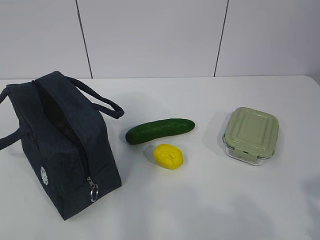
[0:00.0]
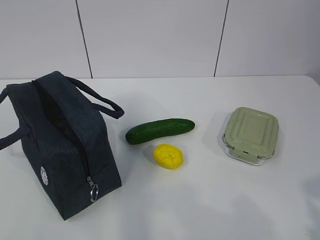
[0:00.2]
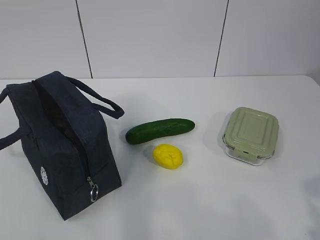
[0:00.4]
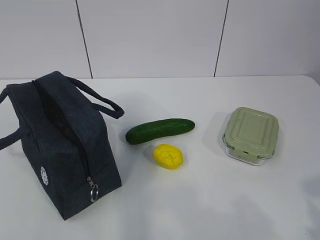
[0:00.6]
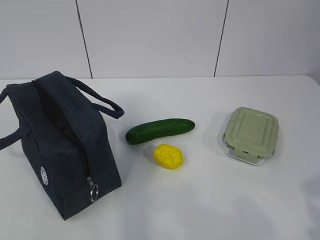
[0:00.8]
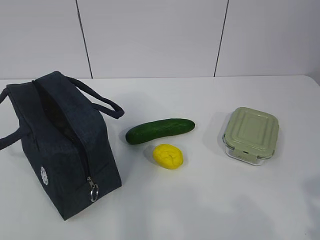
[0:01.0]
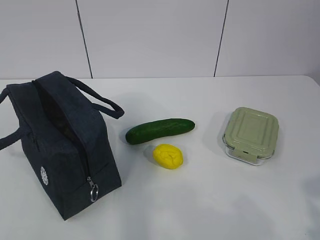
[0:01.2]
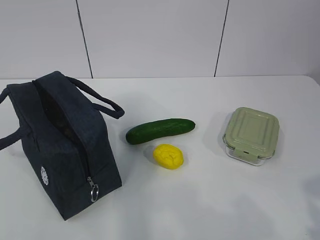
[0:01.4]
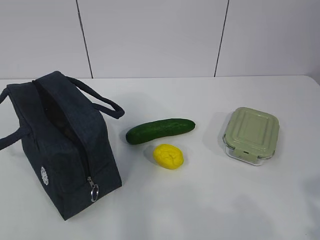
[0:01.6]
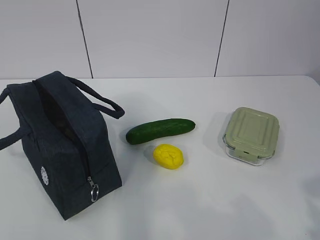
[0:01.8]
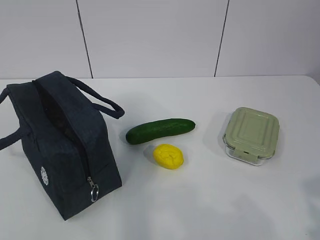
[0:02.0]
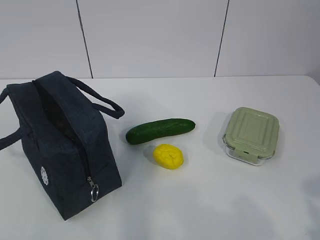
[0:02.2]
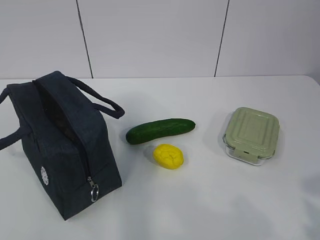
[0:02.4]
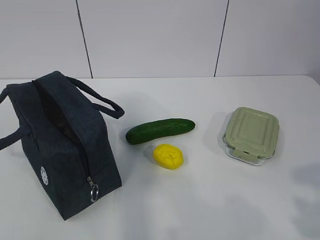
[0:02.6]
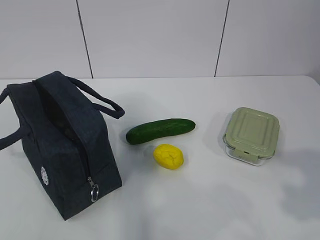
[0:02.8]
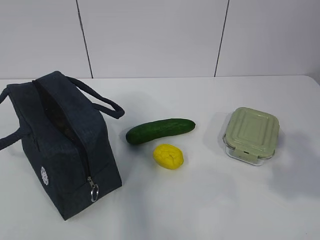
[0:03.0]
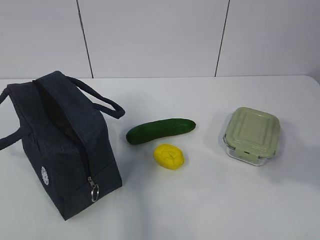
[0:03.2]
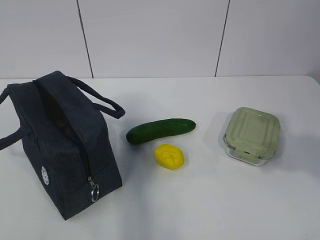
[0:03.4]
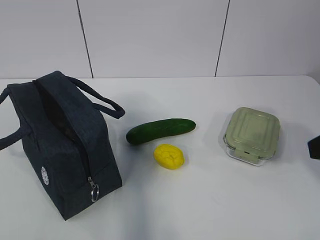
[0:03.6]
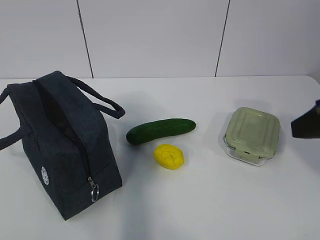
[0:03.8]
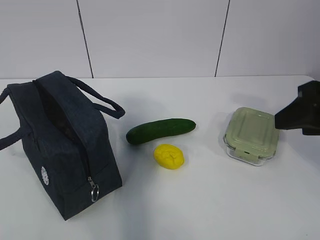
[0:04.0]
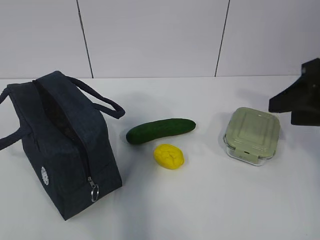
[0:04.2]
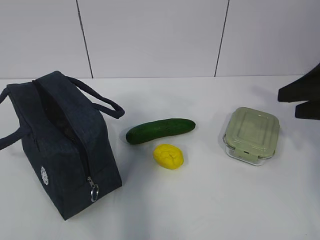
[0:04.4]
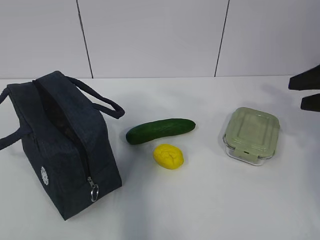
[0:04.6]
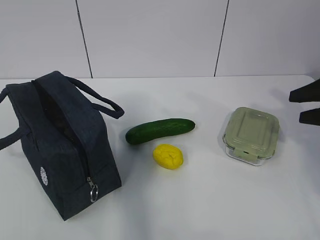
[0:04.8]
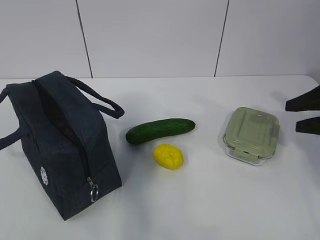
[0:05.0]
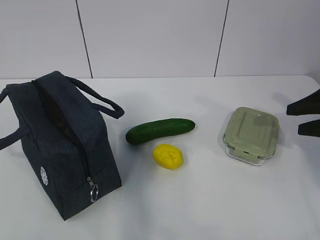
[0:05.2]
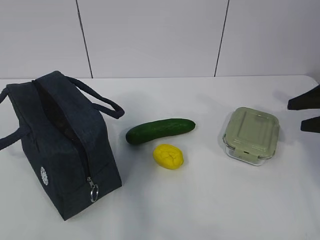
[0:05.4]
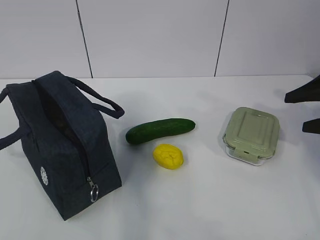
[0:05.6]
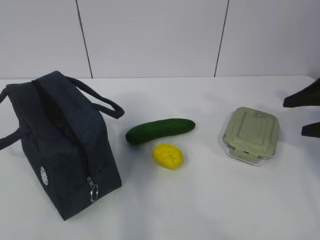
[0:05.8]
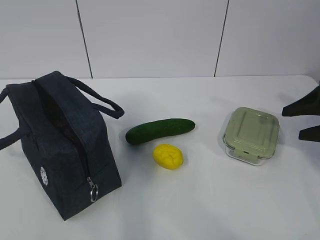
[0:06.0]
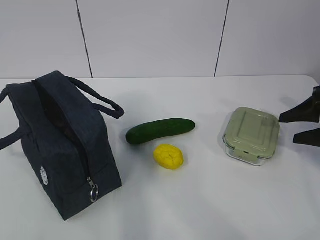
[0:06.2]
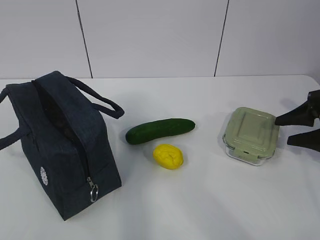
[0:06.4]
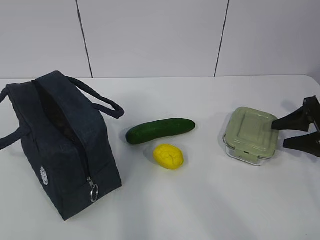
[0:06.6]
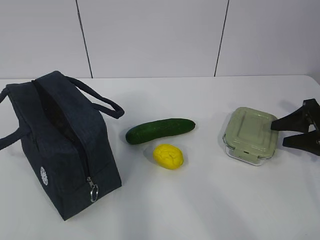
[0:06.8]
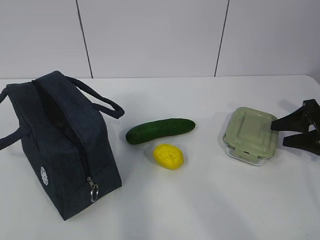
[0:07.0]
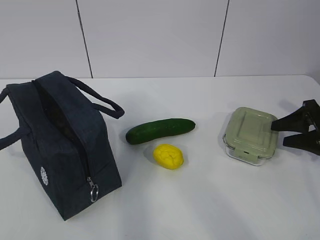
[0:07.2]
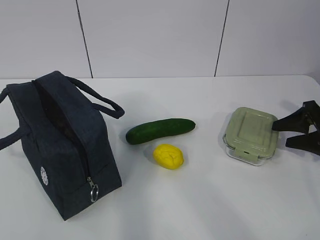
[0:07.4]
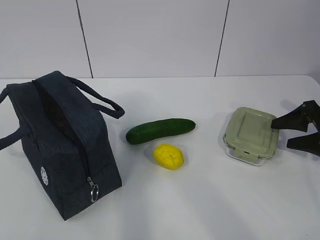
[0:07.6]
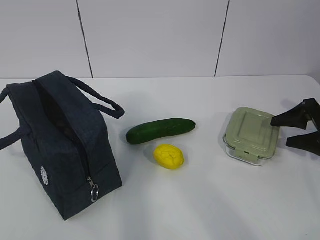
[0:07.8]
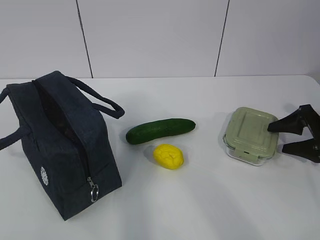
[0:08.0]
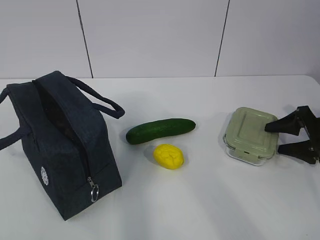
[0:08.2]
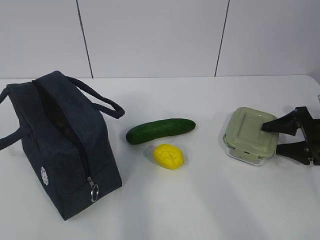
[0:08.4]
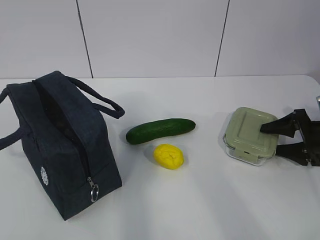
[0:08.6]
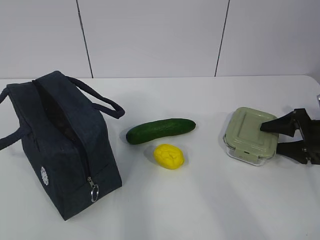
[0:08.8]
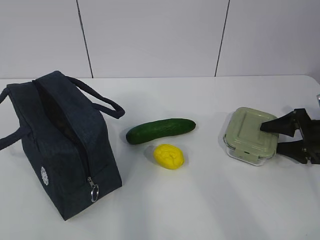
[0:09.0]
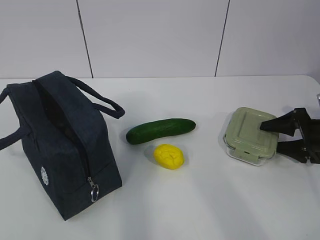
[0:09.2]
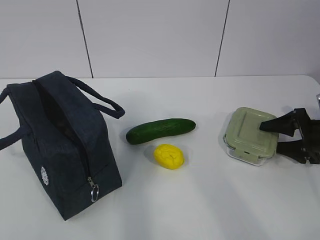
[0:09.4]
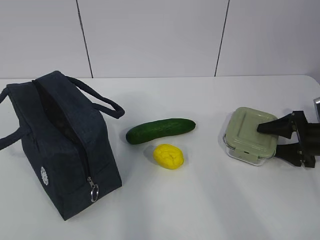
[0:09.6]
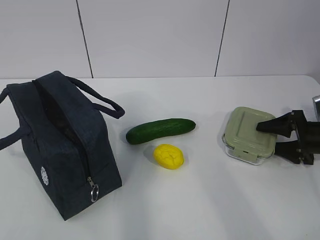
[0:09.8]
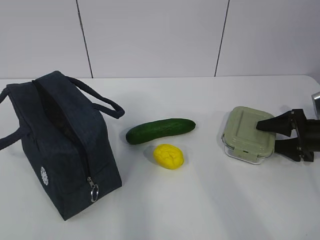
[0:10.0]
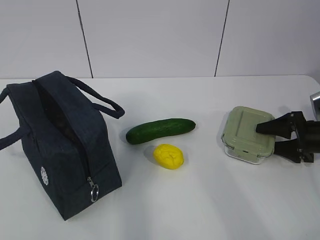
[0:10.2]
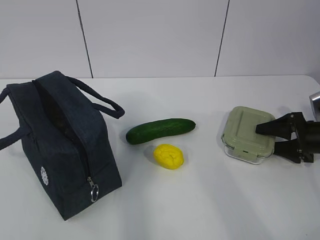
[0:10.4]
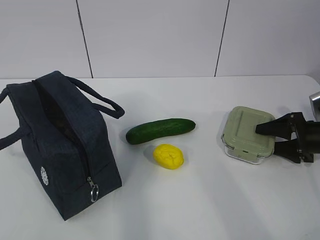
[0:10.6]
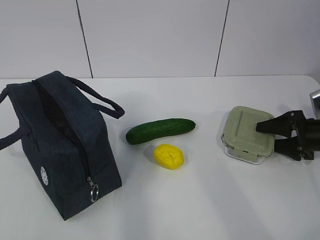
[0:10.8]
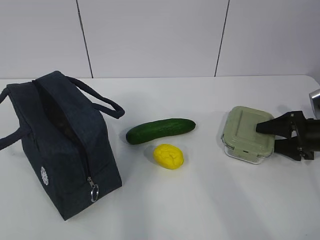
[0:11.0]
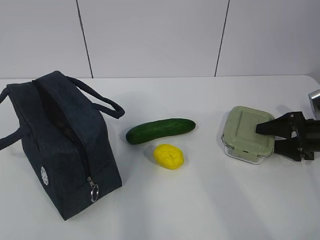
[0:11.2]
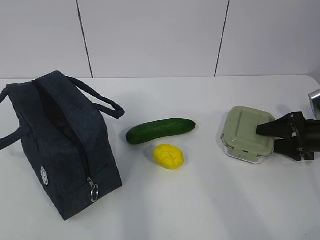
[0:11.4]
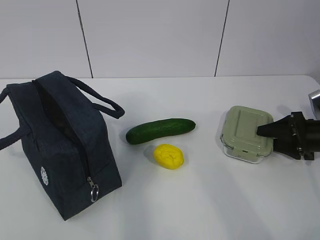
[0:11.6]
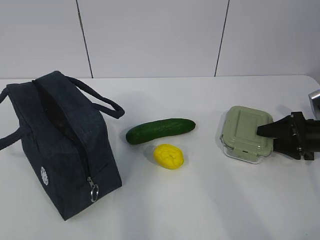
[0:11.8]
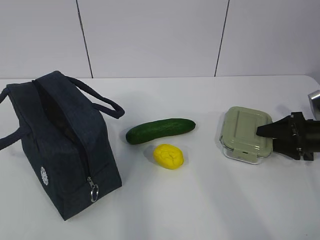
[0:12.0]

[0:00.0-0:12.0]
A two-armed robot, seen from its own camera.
0:03.0 to 0:04.4: The right gripper goes some 15 cm forward.
0:04.4 to 0:06.0: The right gripper shifts about 15 cm downward, to the right and forward.
0:06.0 to 0:07.6: The right gripper heads downward, covering some 5 cm.
0:07.6 to 0:10.4: There are only small adjustments of the grippers.
0:10.4 to 0:12.0: Both grippers stay about where they are.

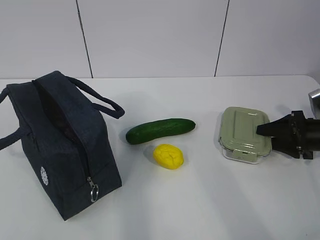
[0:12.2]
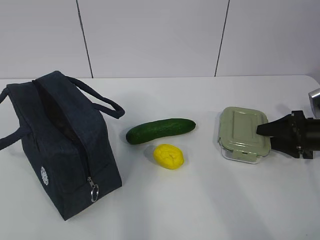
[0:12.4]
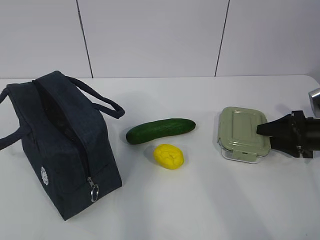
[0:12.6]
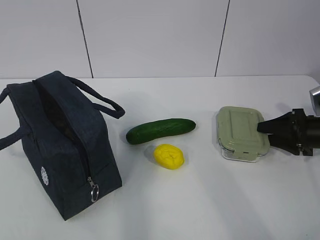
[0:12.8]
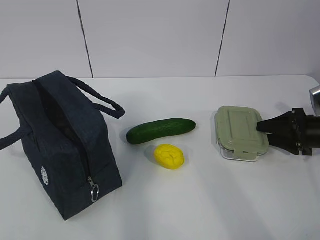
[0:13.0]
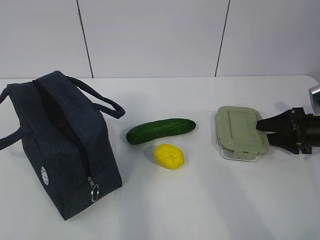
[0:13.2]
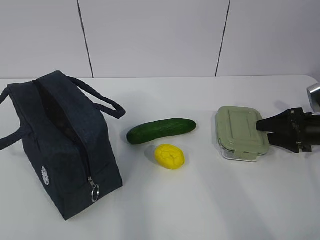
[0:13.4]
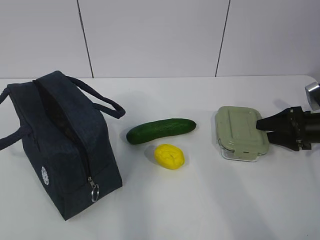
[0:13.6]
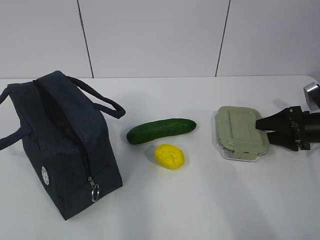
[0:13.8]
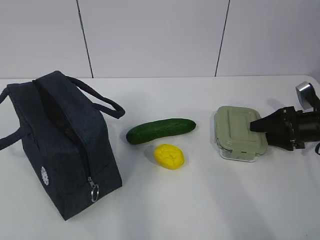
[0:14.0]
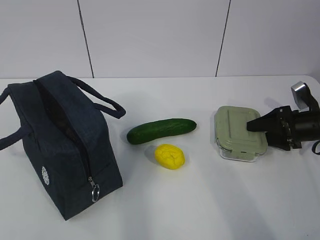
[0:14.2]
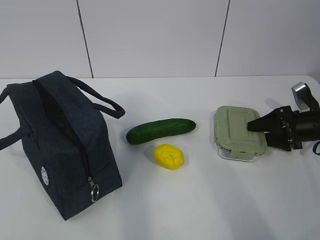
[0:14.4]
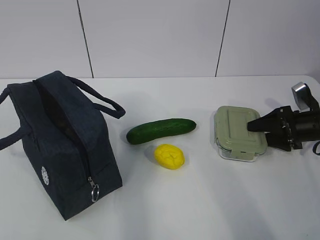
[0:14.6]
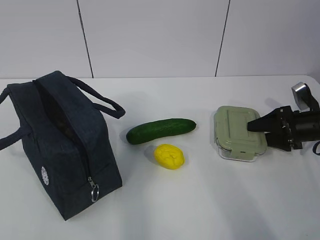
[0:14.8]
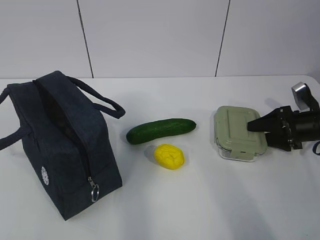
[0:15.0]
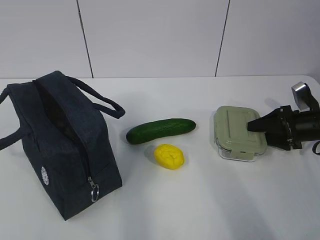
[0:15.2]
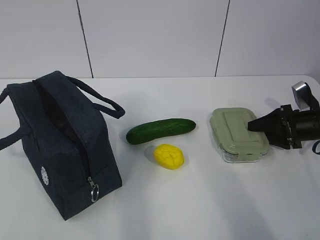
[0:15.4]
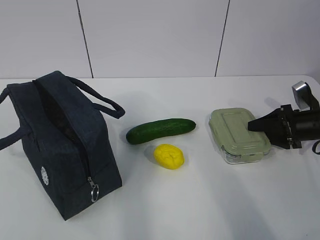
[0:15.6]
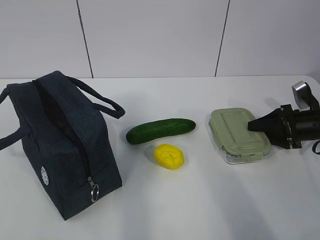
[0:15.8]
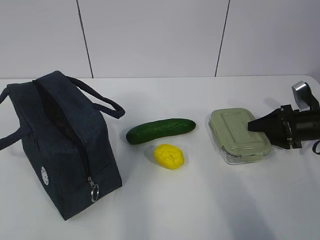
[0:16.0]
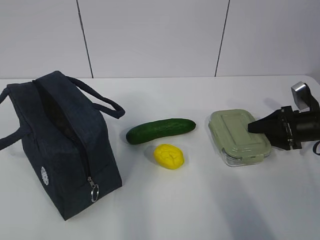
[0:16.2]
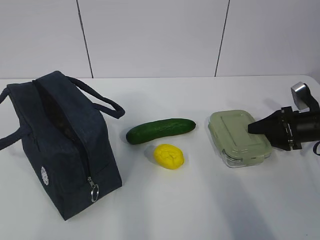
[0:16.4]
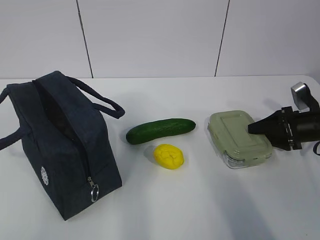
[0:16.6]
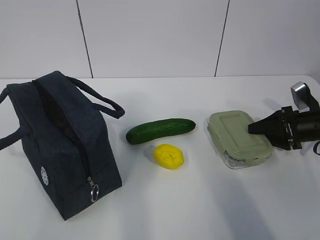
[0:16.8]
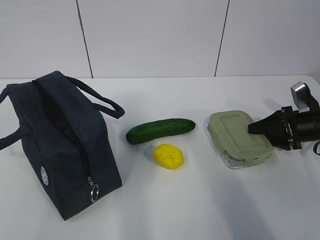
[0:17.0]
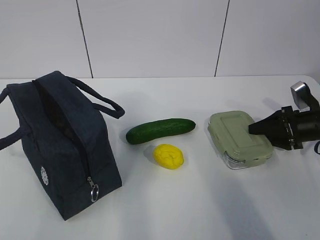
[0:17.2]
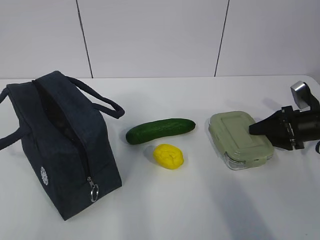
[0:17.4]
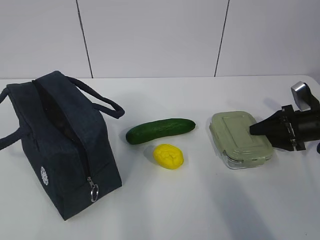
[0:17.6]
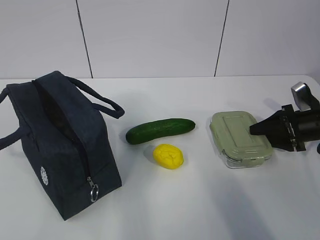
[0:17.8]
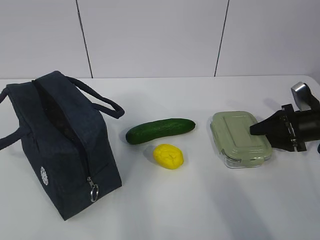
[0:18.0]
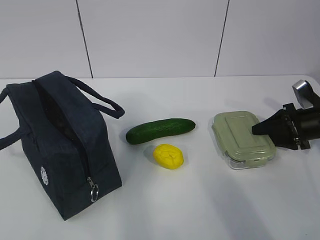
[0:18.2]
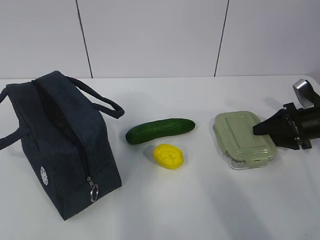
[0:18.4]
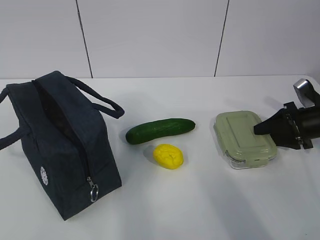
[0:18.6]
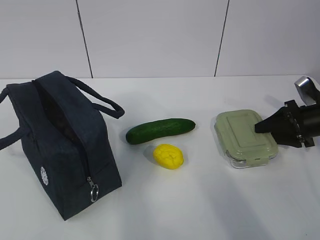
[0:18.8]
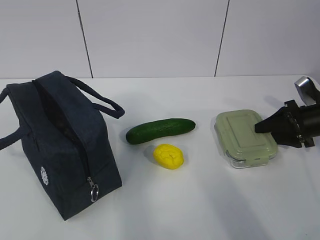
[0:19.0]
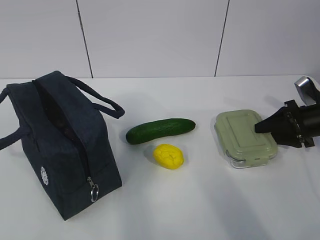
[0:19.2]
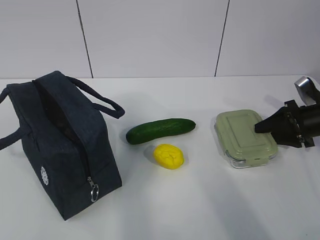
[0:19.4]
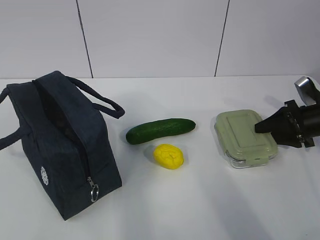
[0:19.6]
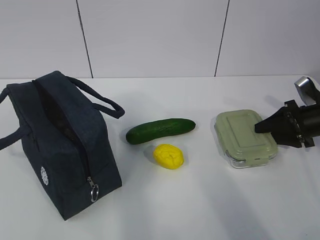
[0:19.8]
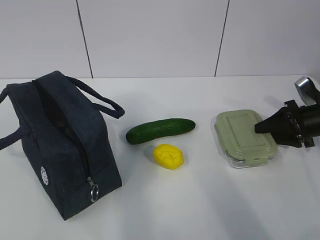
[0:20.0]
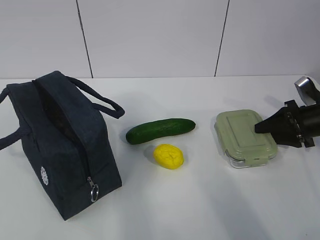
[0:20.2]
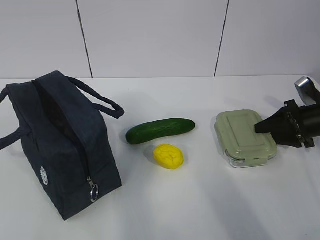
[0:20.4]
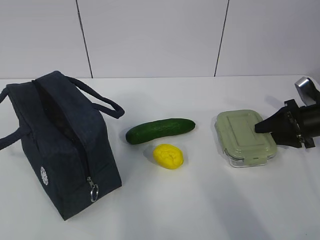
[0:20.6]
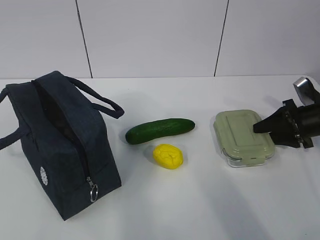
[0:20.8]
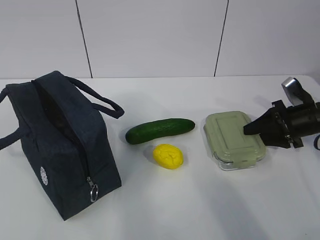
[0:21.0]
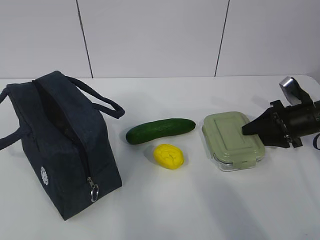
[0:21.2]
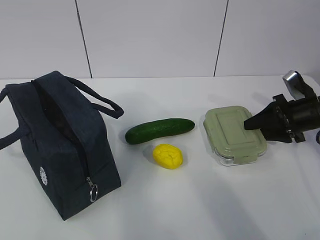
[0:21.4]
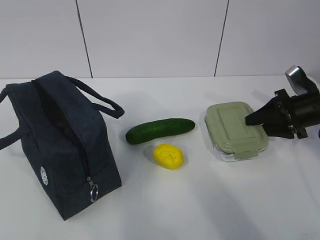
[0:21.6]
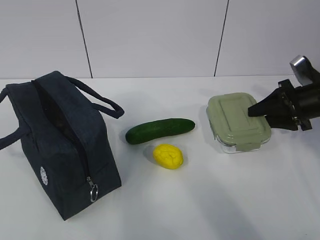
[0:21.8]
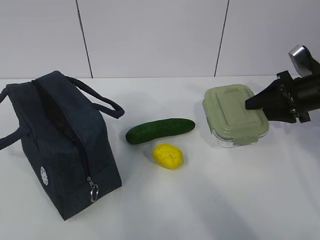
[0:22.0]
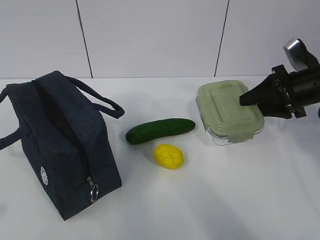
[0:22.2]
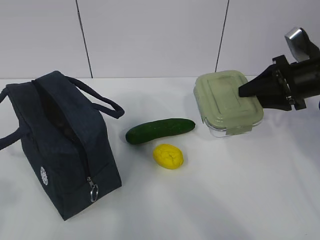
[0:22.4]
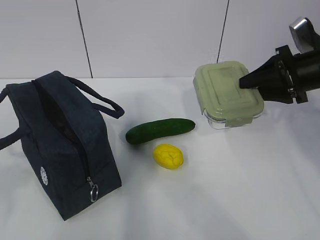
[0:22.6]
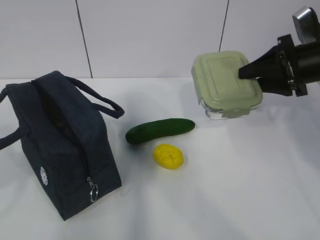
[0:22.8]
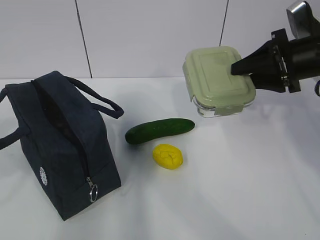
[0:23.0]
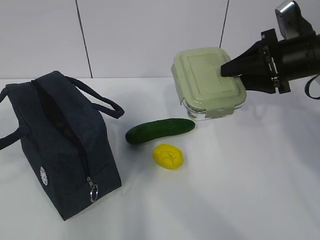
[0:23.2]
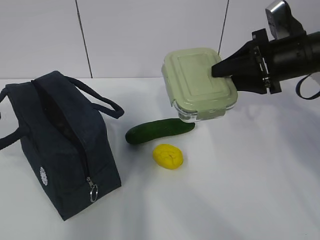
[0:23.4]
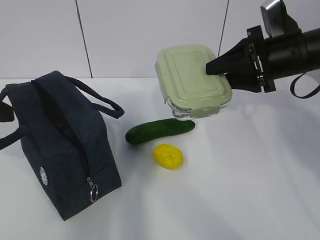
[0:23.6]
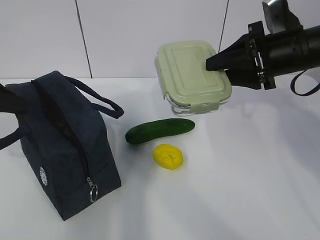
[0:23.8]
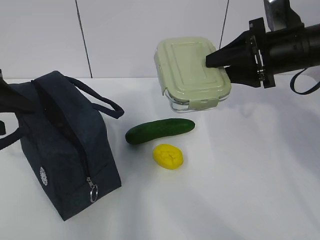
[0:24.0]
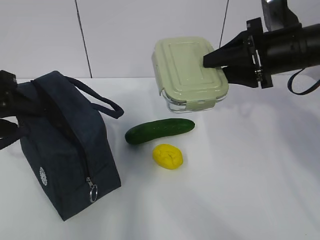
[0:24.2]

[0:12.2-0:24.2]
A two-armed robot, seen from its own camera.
Step, 0:12.2 to 0:17.6: Grab the lunch box with your right hand.
0:12.2 to 0:15.2: The grippers stay close to where they were, moving slightly.
0:15.2 to 0:16.6: Both grippers stay about where they are.
0:16.6 to 0:18.2: The grippers move only a little.
0:18.2 to 0:19.8: Neither gripper changes place.
0:19.8 to 0:21.2: The grippers make only small movements.
0:21.2 to 0:22.6: The right gripper is displaced upward by roughly 10 cm. The left gripper moves forward, about 5 cm.
0:22.6 to 0:24.2: The right gripper goes some 5 cm to the left, while the left gripper shifts about 20 cm forward, and opens its fingers.
